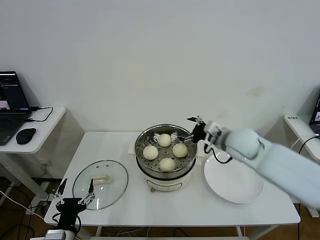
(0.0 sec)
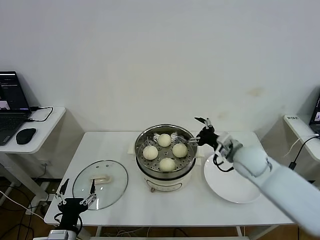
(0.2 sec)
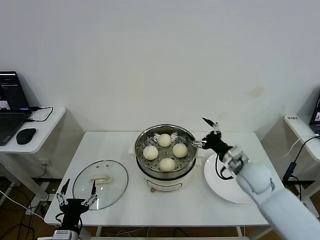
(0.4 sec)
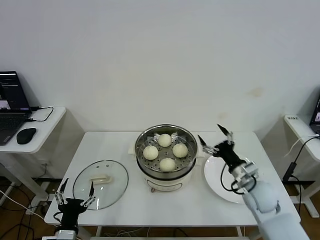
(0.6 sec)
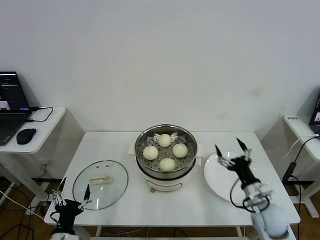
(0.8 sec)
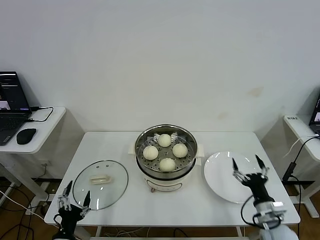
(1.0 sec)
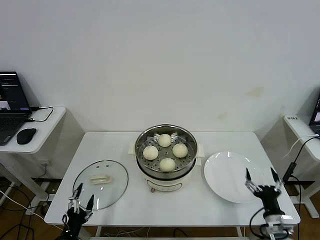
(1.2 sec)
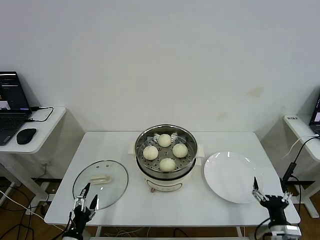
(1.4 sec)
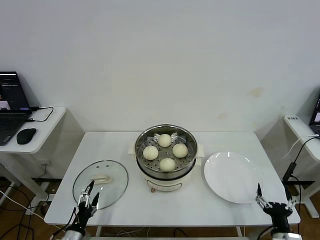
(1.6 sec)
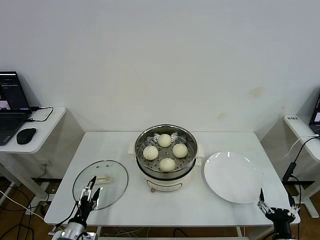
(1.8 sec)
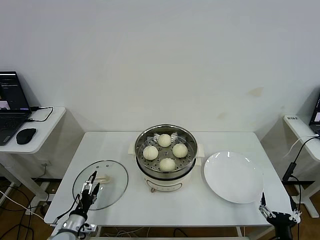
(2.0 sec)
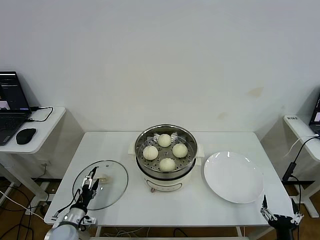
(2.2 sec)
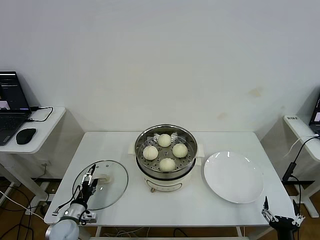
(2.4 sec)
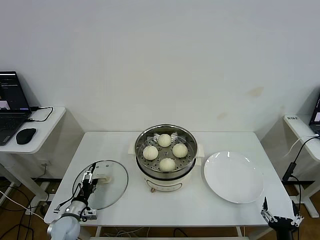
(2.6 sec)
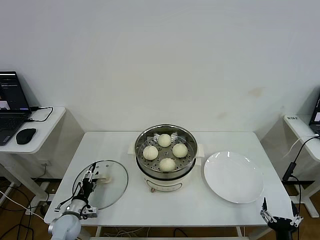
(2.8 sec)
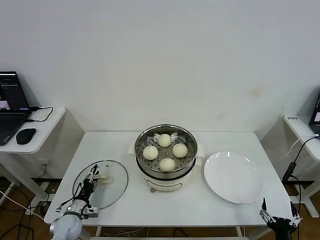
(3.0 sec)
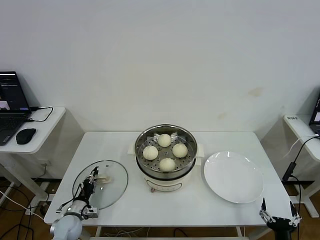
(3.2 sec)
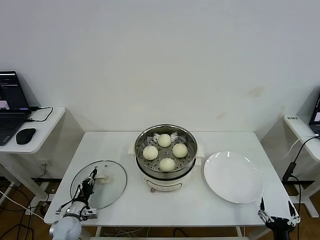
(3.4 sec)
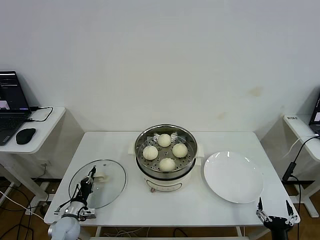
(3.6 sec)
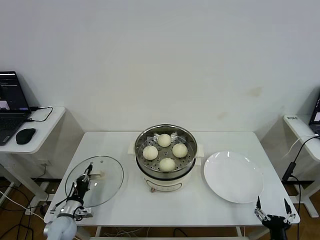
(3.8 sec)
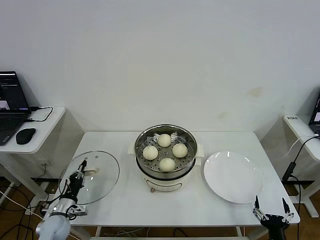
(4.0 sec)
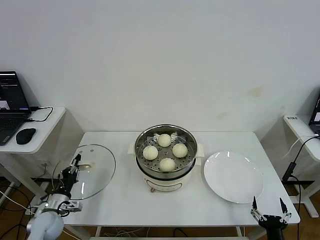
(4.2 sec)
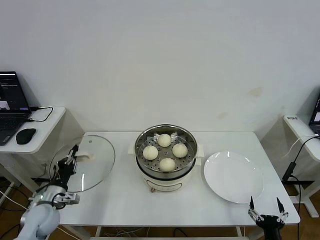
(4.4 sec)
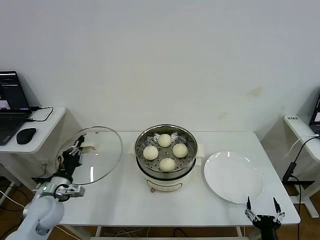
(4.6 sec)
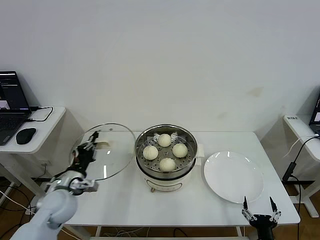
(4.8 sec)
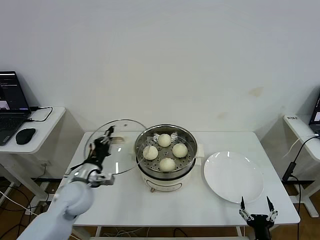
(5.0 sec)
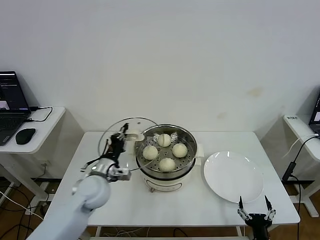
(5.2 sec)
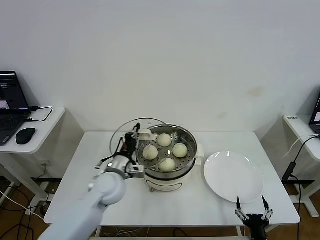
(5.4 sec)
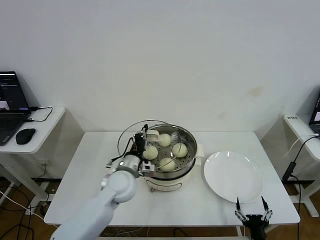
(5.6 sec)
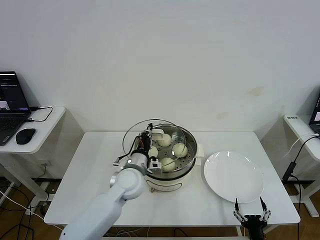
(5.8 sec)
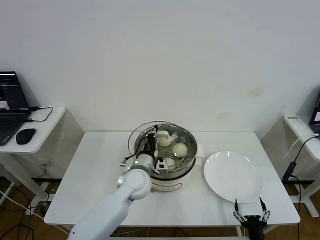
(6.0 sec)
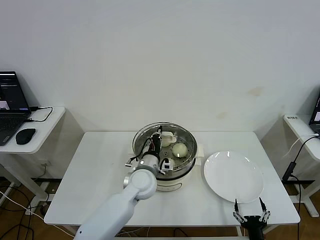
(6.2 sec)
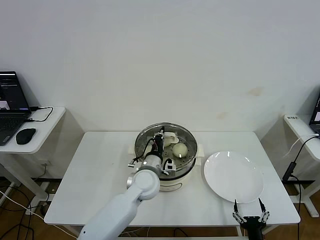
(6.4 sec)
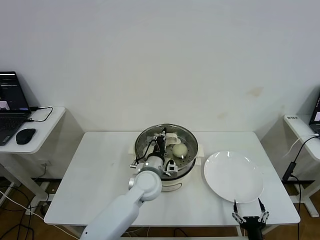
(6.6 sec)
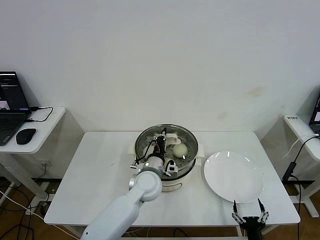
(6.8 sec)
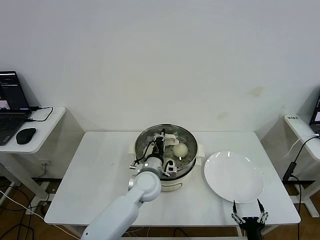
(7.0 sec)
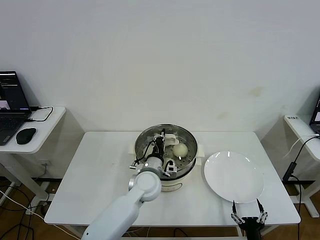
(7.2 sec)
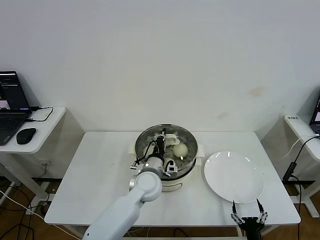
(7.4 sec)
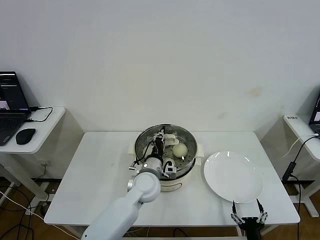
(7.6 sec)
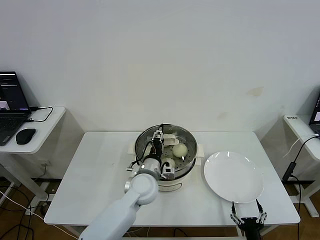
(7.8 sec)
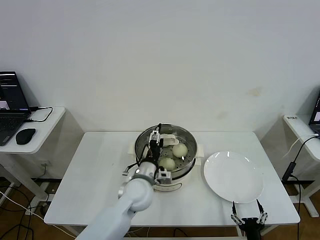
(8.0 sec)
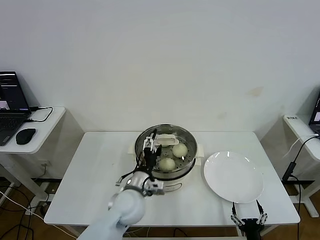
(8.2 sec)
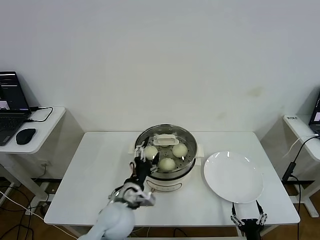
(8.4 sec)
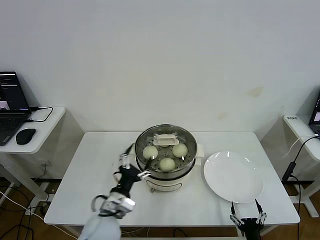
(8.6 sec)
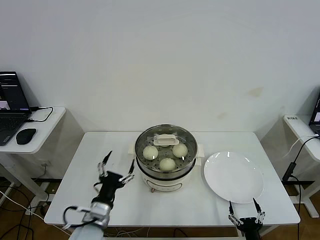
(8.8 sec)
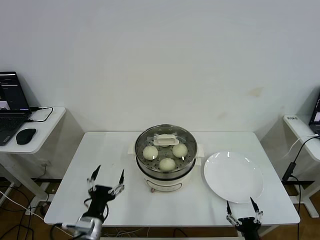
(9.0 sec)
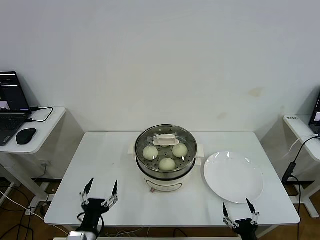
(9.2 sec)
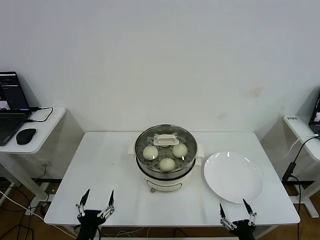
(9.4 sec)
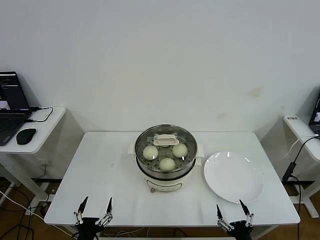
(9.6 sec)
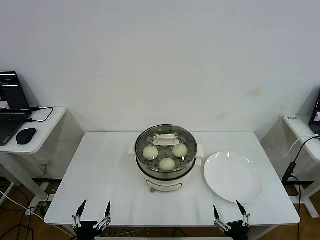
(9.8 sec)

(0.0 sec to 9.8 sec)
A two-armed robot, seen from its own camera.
Step, 0.0 sec - 3.4 sec: Grasp the pot lid with left gripper.
Step, 3.6 sec - 7.8 sec: Place the pot lid on the steamer with left gripper.
0.0 sec - 1.4 sec: The right gripper is displaced backward, downward and to the right by approximately 35 cm. Meanwhile the left gripper is displaced downward by approximately 10 cm.
1.4 sec - 2.8 sec: The right gripper shifts some 5 cm backward, while the left gripper travels forward by approximately 15 cm.
2.8 sec - 4.2 sec: The left gripper moves upward, some 5 cm, and closes its fingers.
4.2 sec - 5.6 sec: The left gripper goes some 30 cm to the right and upward.
5.6 sec - 7.0 sec: The left gripper goes about 10 cm to the right.
7.0 sec - 8.4 sec: The left gripper heads backward and to the left, covering about 10 cm, and opens.
8.4 sec - 9.8 sec: The right gripper shifts by about 5 cm; the left gripper moves backward, to the left and downward, some 25 cm.
